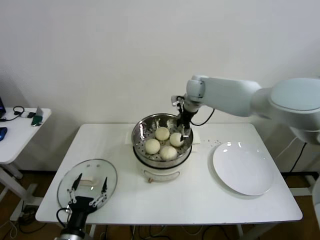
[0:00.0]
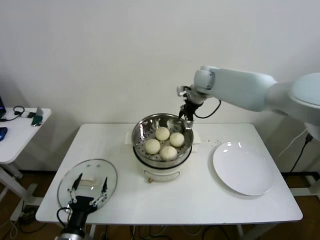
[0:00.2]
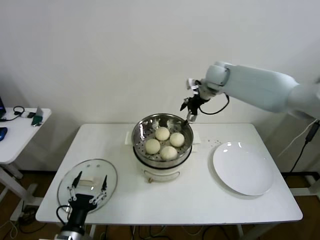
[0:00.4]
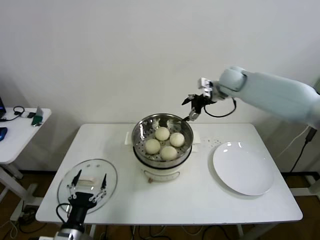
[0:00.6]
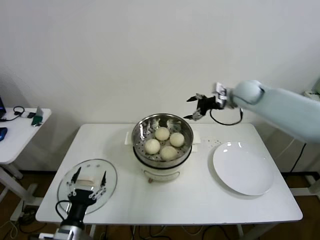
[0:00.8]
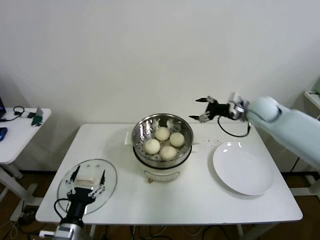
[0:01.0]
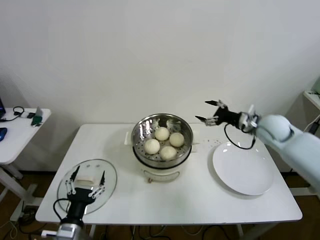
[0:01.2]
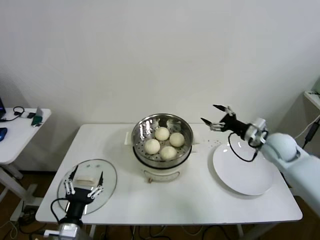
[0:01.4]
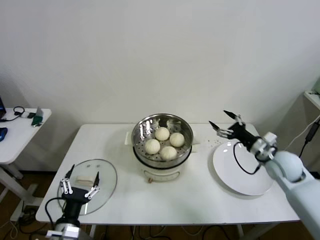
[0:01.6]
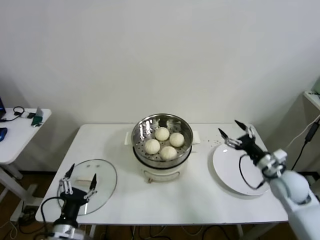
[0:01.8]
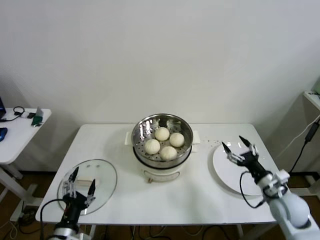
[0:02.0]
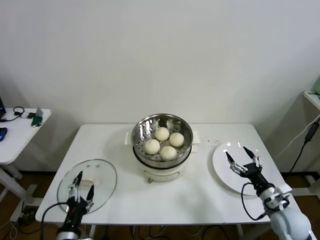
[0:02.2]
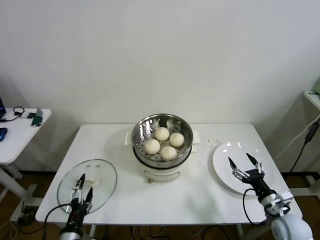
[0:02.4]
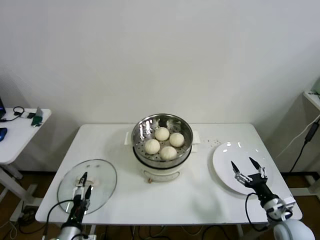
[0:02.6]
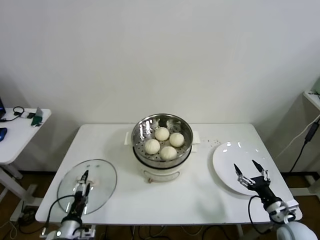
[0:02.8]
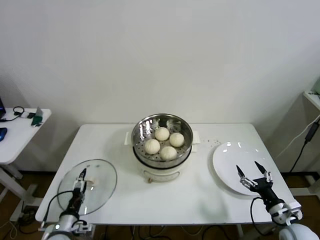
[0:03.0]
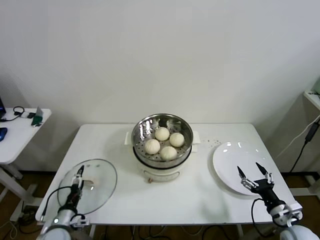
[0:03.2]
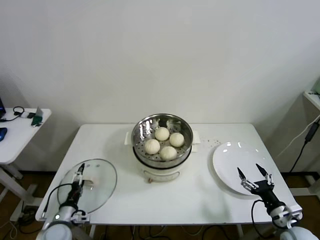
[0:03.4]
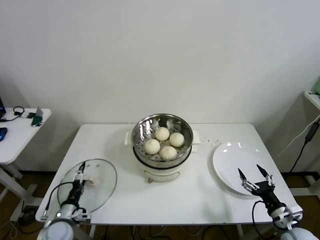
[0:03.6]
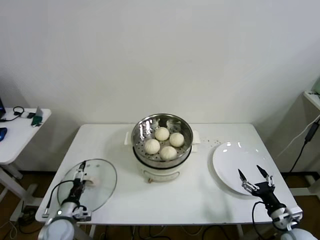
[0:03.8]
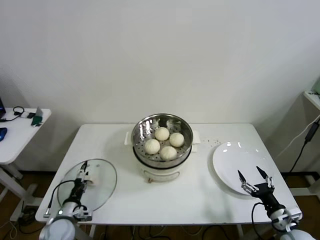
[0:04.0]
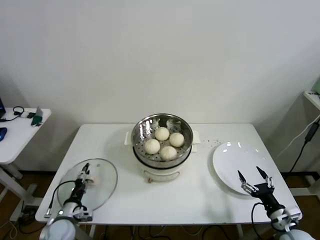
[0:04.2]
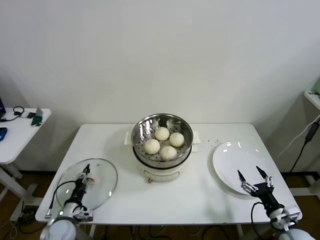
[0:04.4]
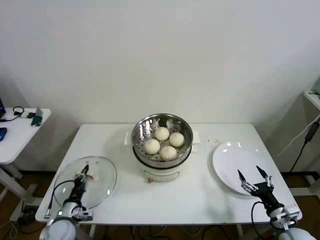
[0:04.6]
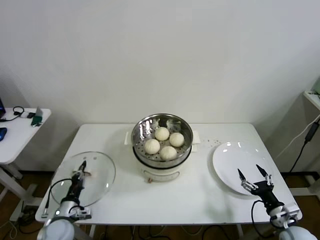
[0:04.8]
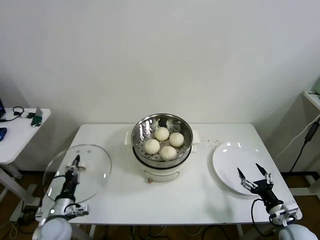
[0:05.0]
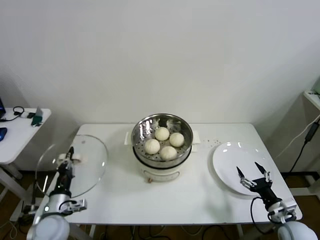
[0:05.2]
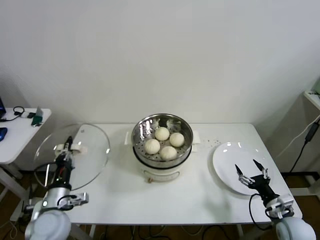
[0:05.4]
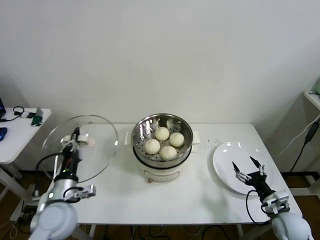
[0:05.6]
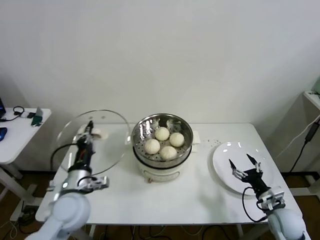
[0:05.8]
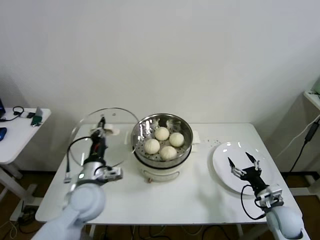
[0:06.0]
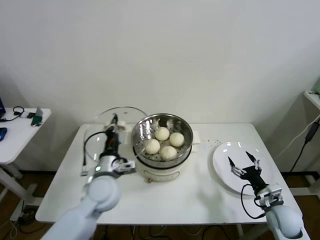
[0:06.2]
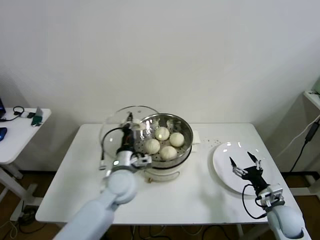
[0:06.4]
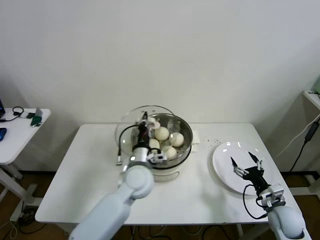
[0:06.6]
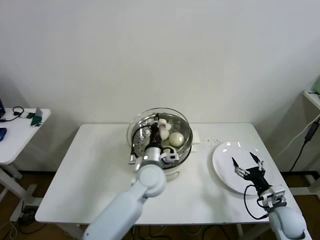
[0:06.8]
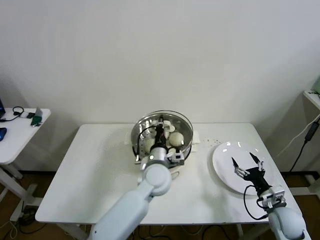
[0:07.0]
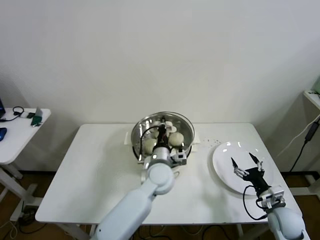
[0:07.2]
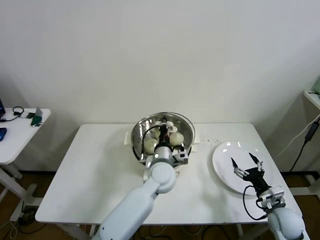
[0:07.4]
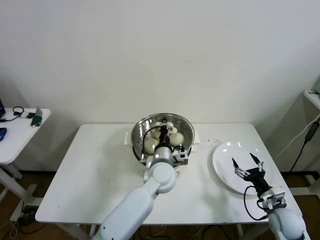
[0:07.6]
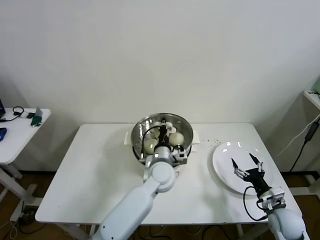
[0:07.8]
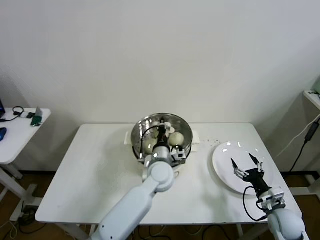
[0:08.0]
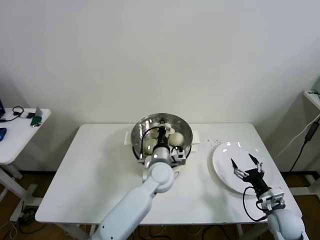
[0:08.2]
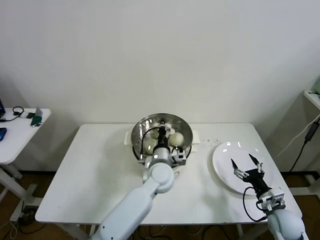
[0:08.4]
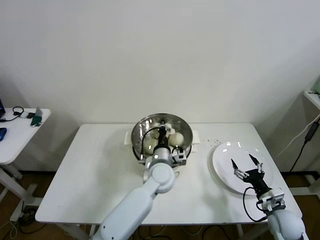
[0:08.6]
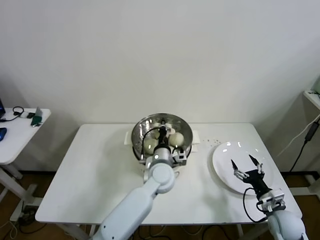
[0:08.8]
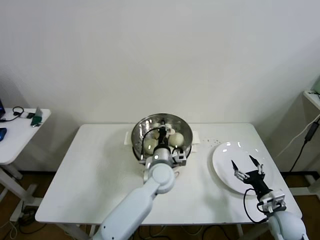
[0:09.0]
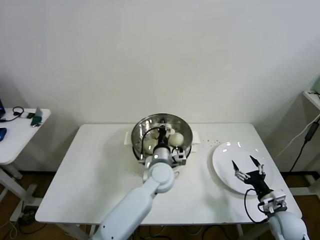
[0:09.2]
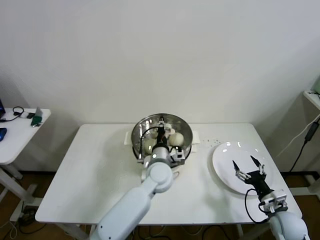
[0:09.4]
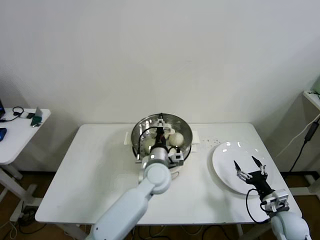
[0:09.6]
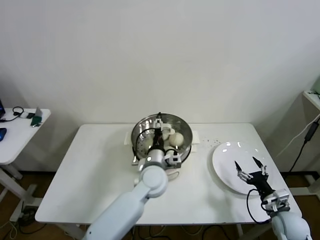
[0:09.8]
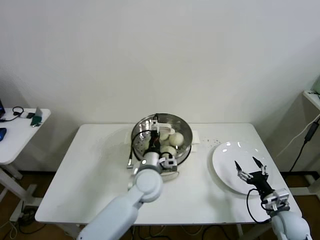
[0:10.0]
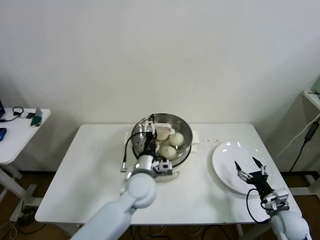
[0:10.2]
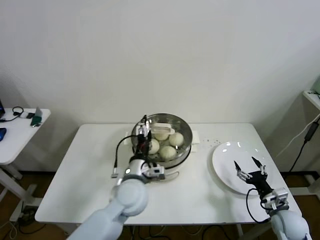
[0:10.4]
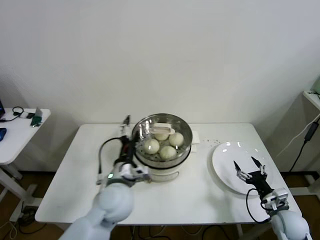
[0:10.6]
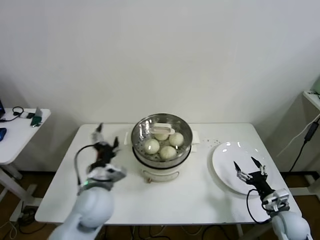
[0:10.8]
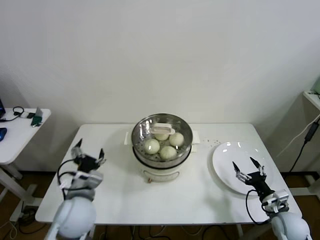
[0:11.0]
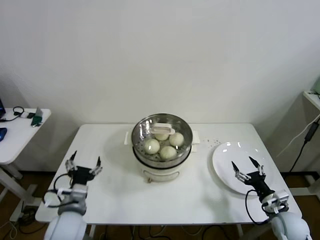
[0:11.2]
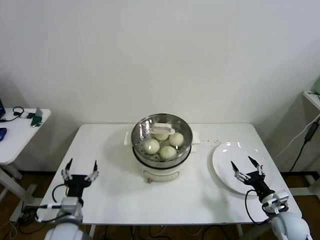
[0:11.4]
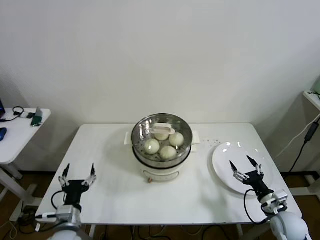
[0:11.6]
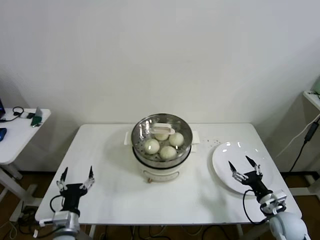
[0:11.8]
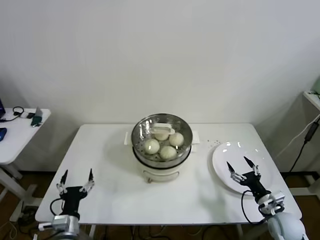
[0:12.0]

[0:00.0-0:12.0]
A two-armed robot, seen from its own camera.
Step, 0:00.0 to 0:04.6: Grasp the pot lid with left gripper.
Step, 0:04.8 to 0:09.2: Place the pot lid on the steamer with left gripper.
0:00.0 to 0:01.6: The right gripper heads to the right, backward and downward, covering about 40 cm.
0:01.6 to 0:03.0: The left gripper moves downward, about 10 cm. The right gripper is displaced backward and downward by roughly 20 cm.
0:03.0 to 0:04.4: The left gripper shifts approximately 5 cm forward, and closes up.
0:04.4 to 0:06.0: The right gripper goes approximately 5 cm forward, while the left gripper travels upward and to the right by approximately 25 cm, and closes up.
0:06.0 to 0:07.6: The left gripper shifts some 25 cm to the right and forward.
0:07.6 to 0:09.0: The grippers move only a little.
0:09.0 to 0:10.4: The left gripper heads to the left and backward, covering about 10 cm, and opens up.
0:10.4 to 0:12.0: The left gripper goes approximately 30 cm to the left, backward and downward.
